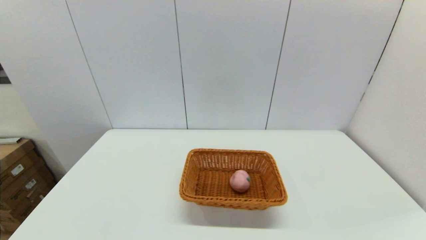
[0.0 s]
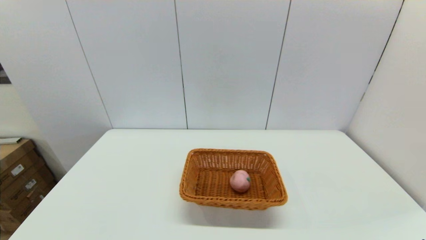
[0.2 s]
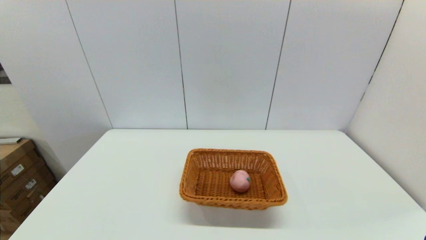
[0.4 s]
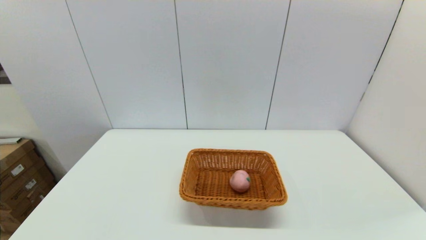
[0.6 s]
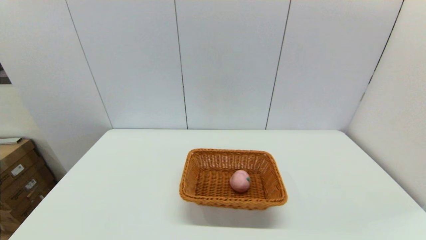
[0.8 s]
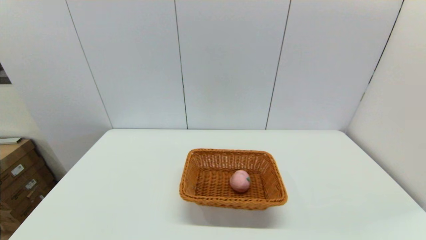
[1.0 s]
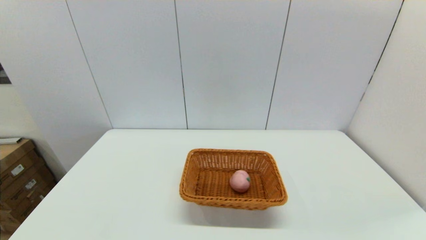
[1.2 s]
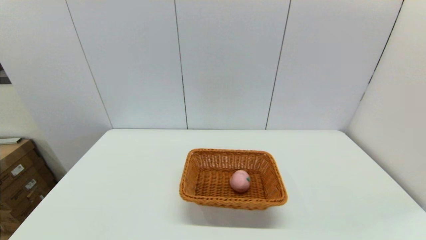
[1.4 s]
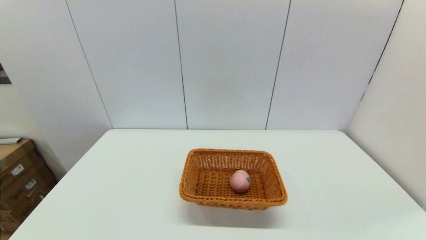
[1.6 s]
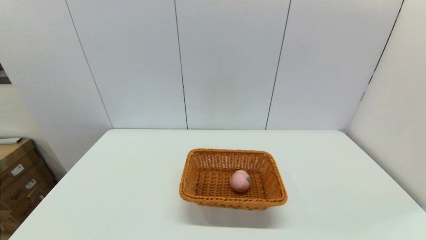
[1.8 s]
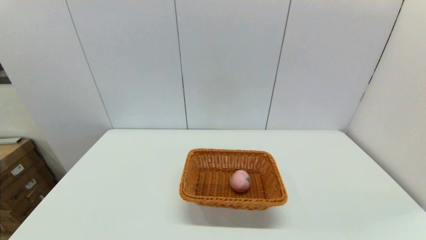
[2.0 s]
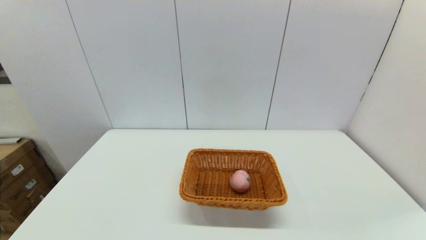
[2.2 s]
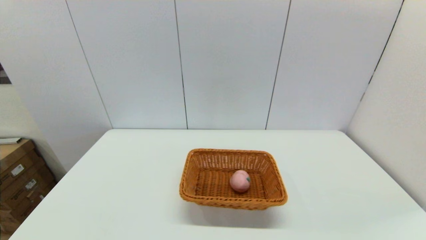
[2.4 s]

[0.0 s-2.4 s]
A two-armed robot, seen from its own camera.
1.2 to 2.4 s: Both grippers stay put.
